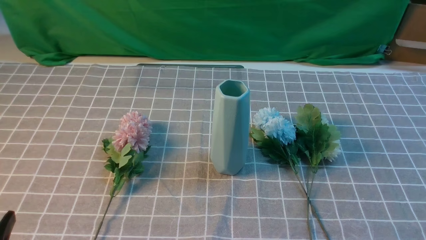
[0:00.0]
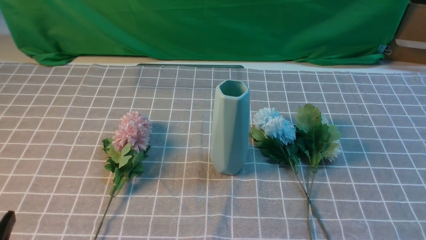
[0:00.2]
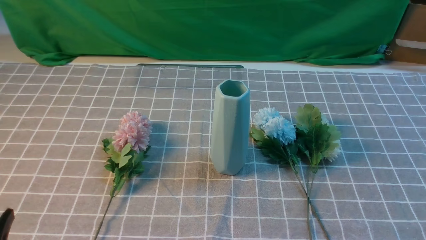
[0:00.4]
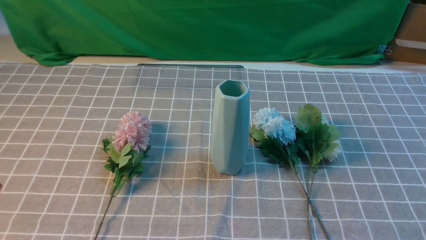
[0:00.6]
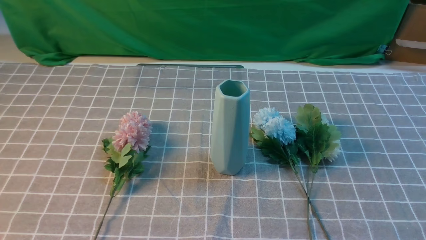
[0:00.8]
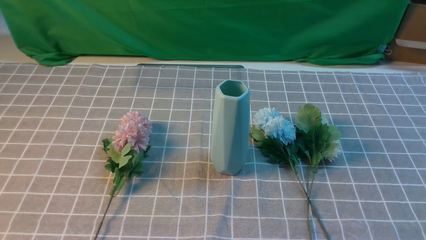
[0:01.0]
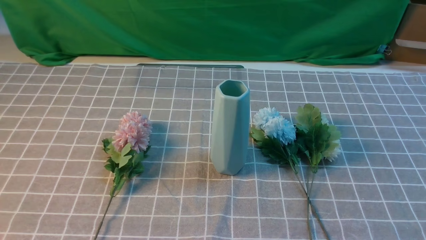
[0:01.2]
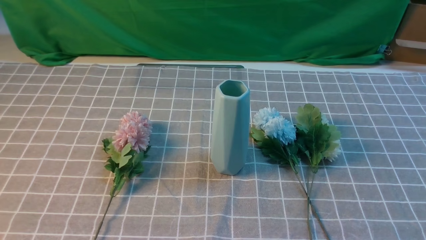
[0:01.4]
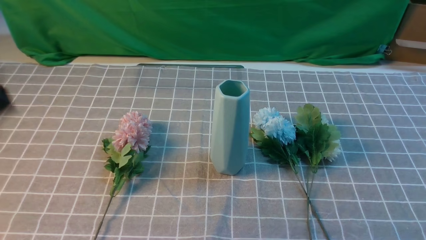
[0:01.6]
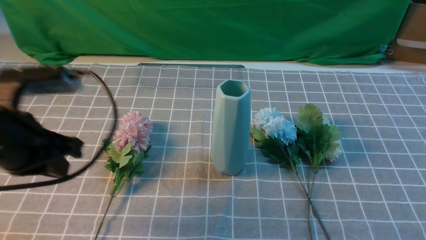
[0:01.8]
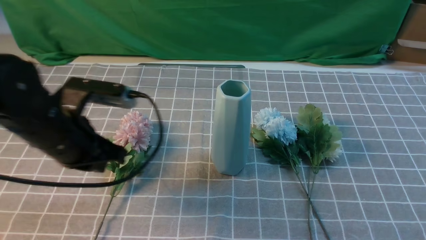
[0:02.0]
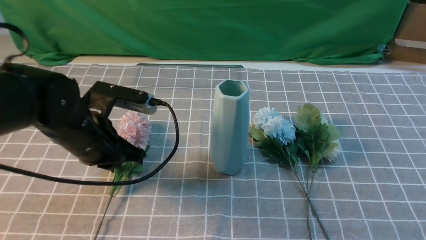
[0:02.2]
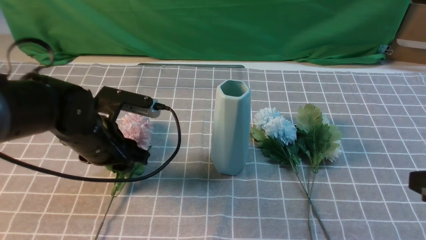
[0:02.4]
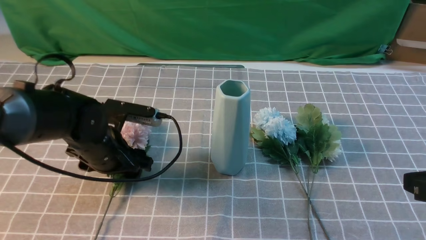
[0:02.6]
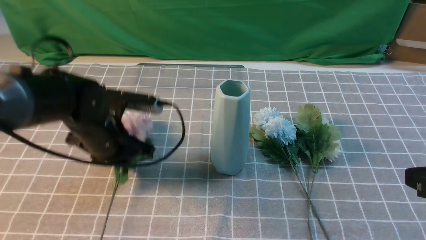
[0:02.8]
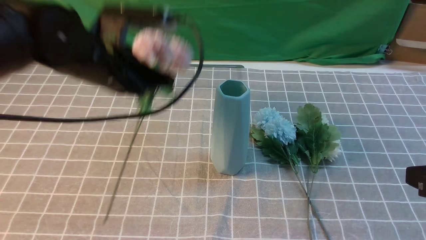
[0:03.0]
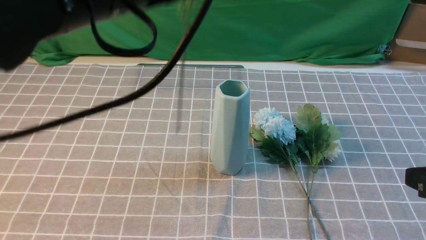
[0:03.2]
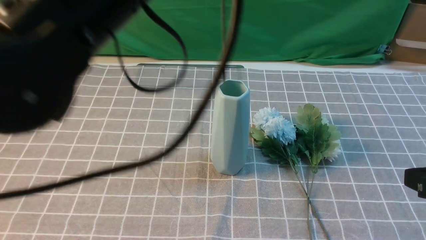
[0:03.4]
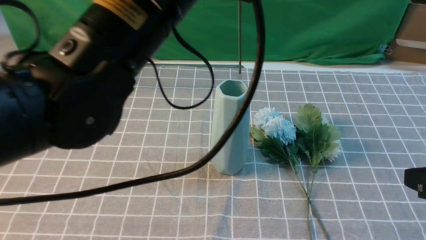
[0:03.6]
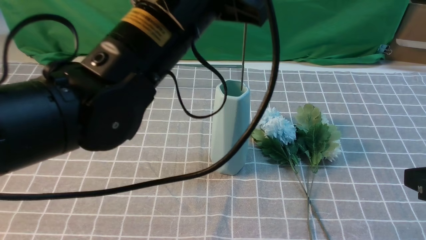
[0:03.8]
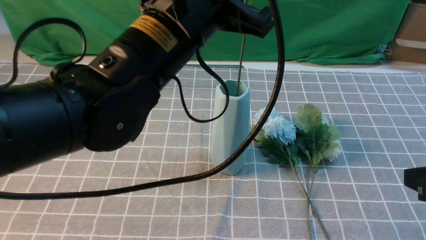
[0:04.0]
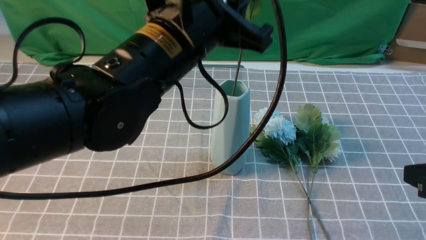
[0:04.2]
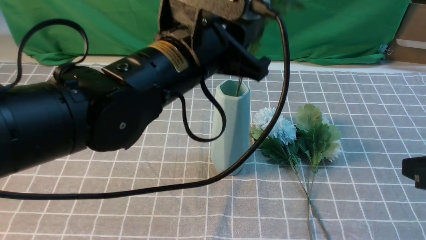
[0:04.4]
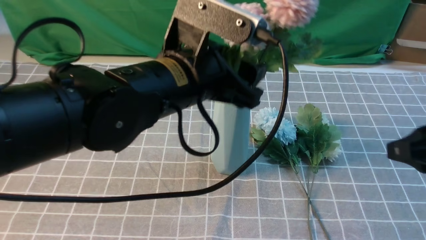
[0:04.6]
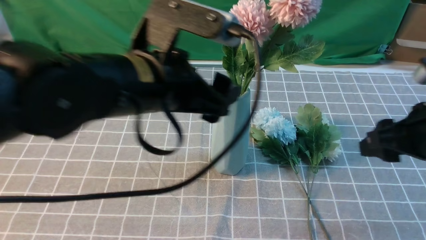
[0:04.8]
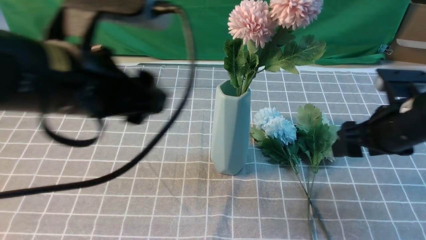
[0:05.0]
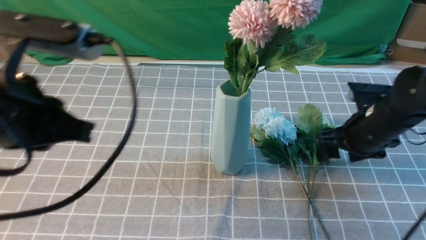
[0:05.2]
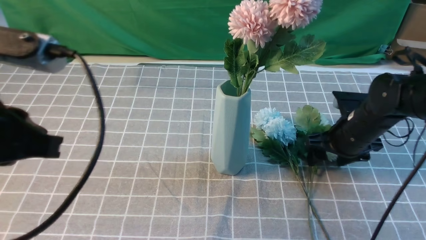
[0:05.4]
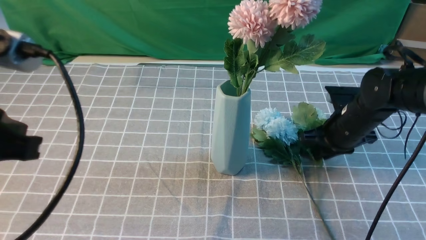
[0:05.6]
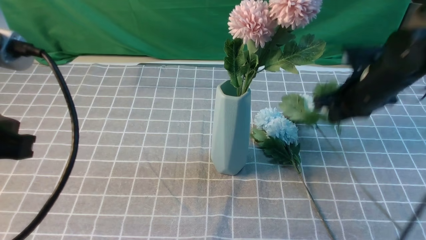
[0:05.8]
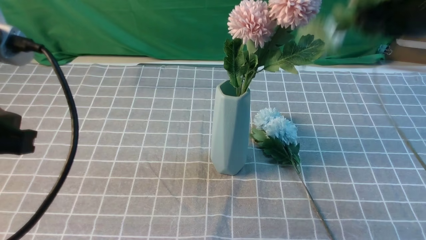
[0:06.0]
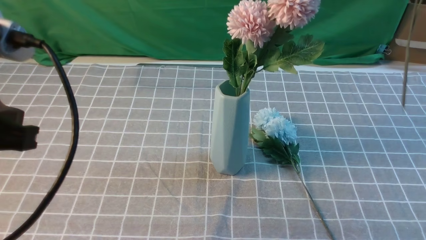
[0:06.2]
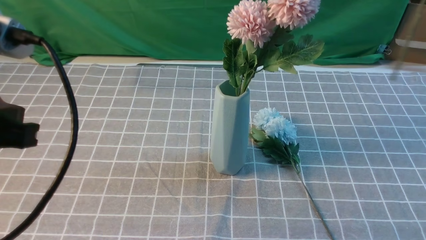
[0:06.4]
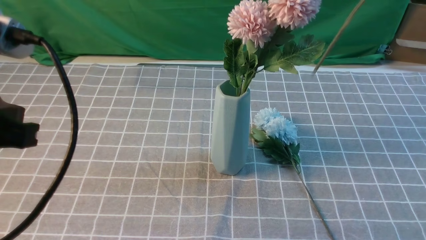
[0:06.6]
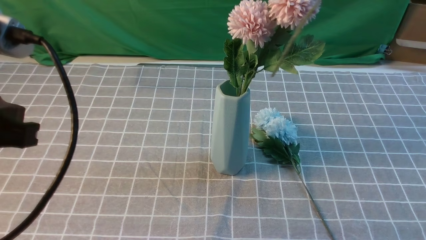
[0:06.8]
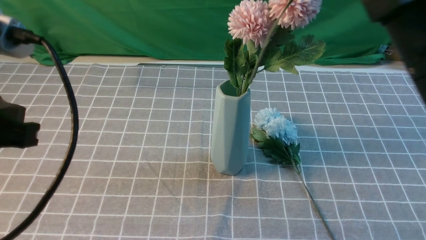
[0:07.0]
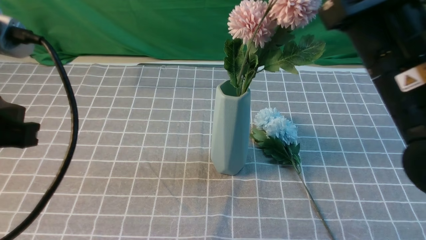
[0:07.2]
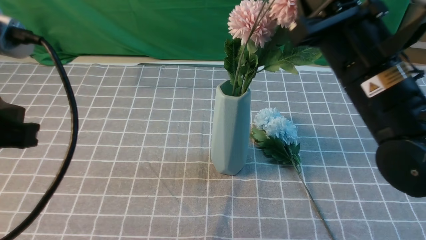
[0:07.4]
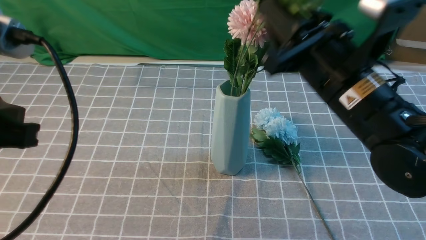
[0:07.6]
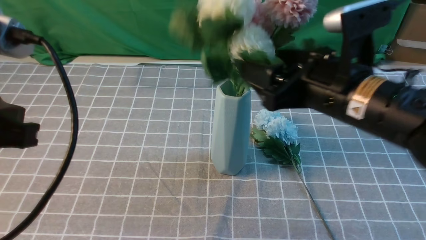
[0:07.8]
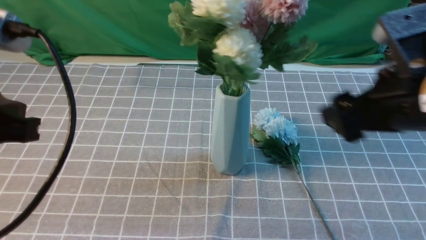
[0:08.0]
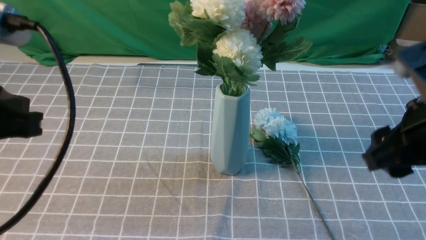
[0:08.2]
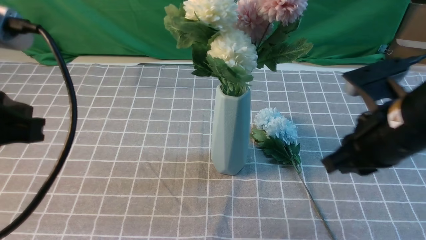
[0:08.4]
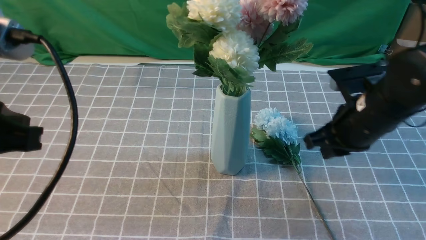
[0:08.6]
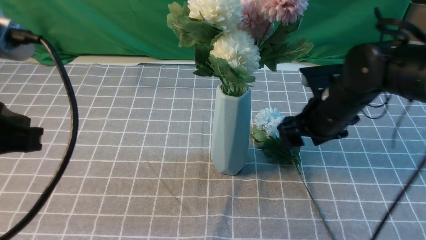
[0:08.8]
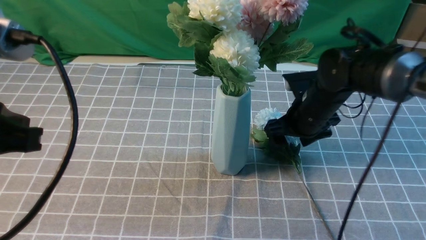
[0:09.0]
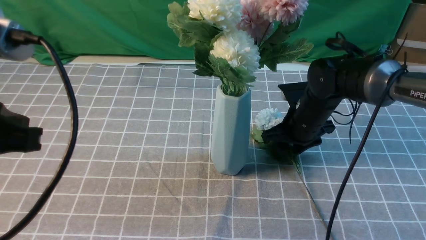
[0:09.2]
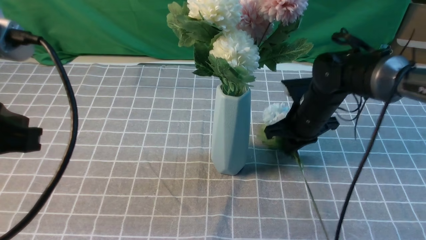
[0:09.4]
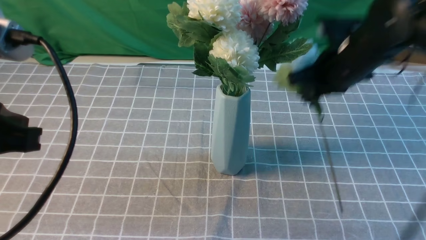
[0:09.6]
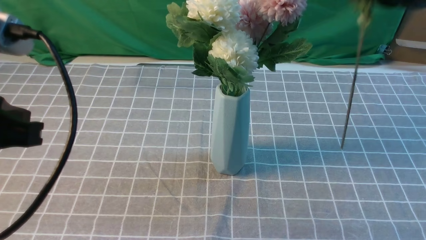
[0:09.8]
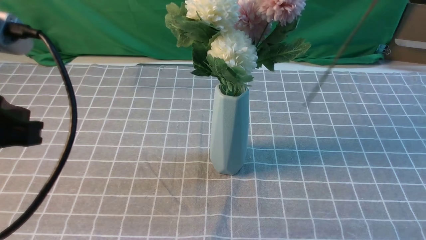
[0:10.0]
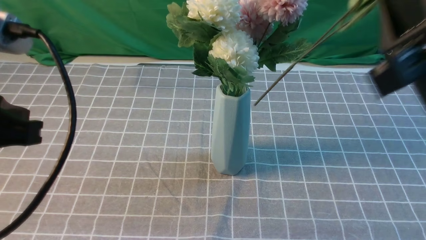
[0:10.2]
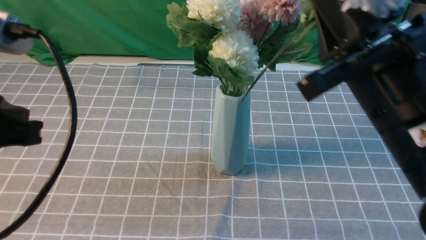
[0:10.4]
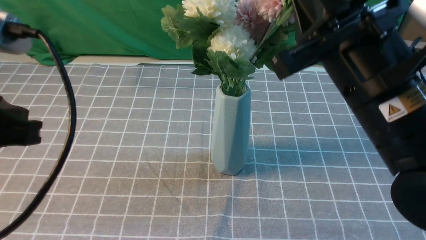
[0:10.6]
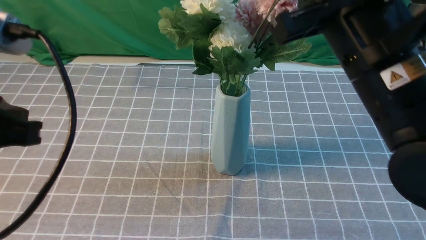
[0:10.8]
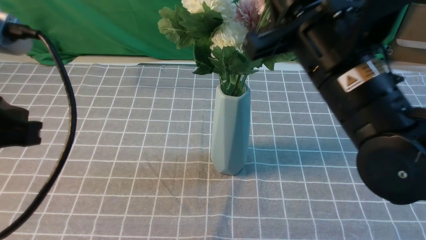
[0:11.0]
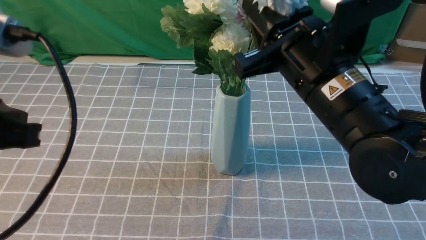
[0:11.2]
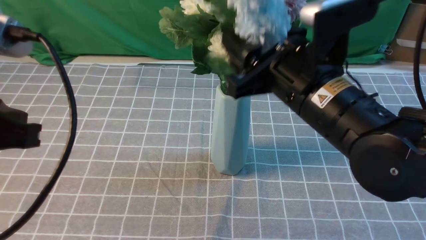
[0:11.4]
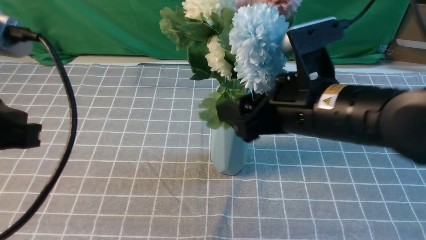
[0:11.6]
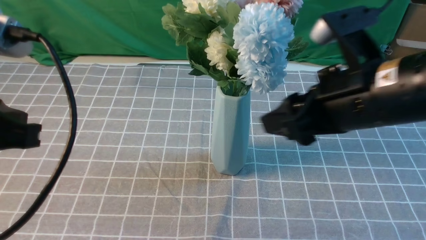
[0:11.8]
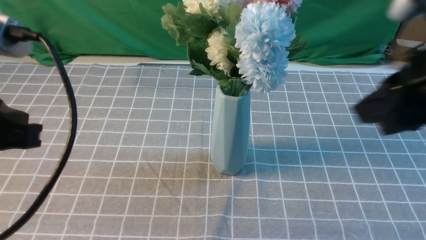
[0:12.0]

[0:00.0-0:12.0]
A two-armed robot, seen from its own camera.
Task of the whole recording: insert the flowers into the vase on the table with the grey tablecloth.
Step, 0:00.0 to 0:02.8: use the left arm to grab a bunch of fresh flowers.
Step, 0:03.0 to 0:04.8: use the left arm to insert the flowers into the vase.
Step, 0:05.0 to 0:05.6: use the right arm to grab a bunch of fresh flowers.
Step, 0:05.8 to 0:07.8: use the right arm to insert the flowers into the vase.
Step, 0:08.0 to 0:09.4: use the right arm to grab a bunch of fresh flowers.
Step, 0:09.6 to 0:11.6: use the right arm to insert the flowers into the vase.
0:00.0 to 0:01.6: The left gripper is displaced upward and forward by approximately 20 cm, and closes up.
0:01.6 to 0:03.0: The left gripper is displaced forward and to the right by roughly 20 cm, goes downward and returns, about 15 cm each way, and opens and closes again; the right gripper shifts about 15 cm forward and upward.
0:03.0 to 0:04.4: The left gripper moves to the right, about 5 cm, goes upward and returns, approximately 10 cm each way, and opens.
0:04.4 to 0:06.0: The right gripper shifts approximately 15 cm forward and upward, and opens and closes again; the left gripper shifts some 20 cm to the left and backward, and closes.
0:06.0 to 0:07.6: The right gripper is displaced to the left, downward and backward by about 15 cm, and opens up.
0:07.6 to 0:09.0: The right gripper travels downward and forward by approximately 20 cm, and opens up.
0:09.0 to 0:10.4: The right gripper is displaced backward and upward by about 25 cm, and closes up.
0:10.4 to 0:12.0: The right gripper shifts some 5 cm to the right, and opens, then closes once more.

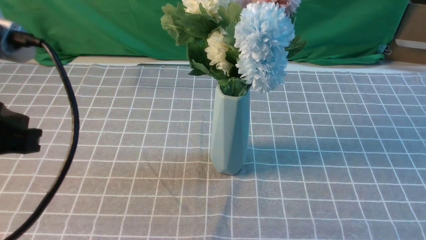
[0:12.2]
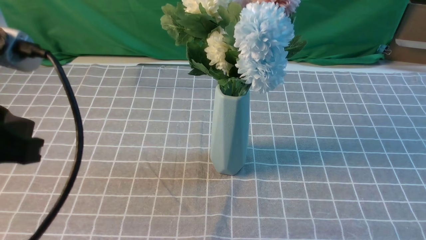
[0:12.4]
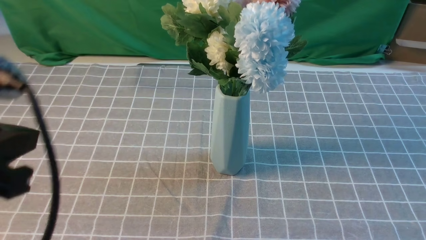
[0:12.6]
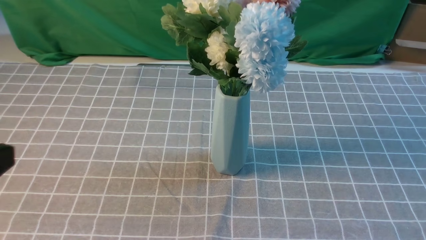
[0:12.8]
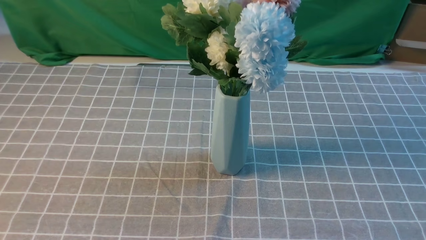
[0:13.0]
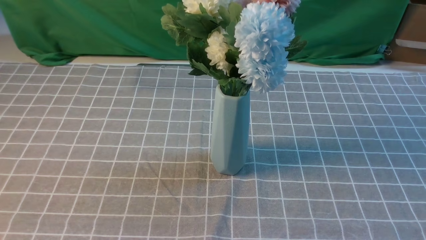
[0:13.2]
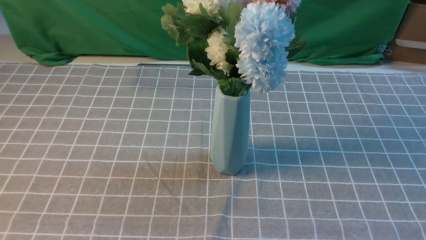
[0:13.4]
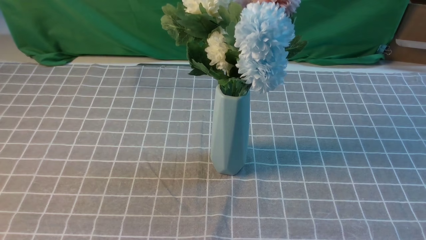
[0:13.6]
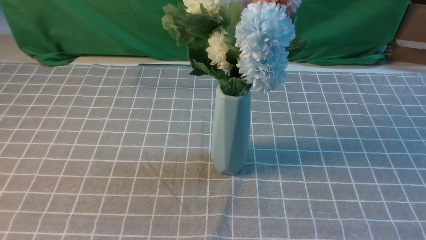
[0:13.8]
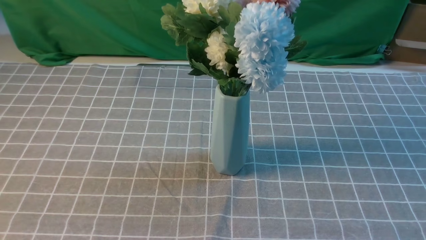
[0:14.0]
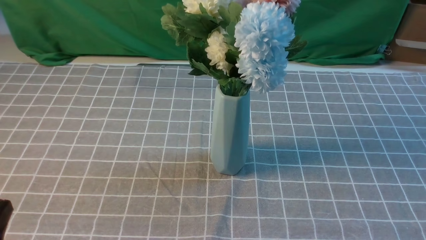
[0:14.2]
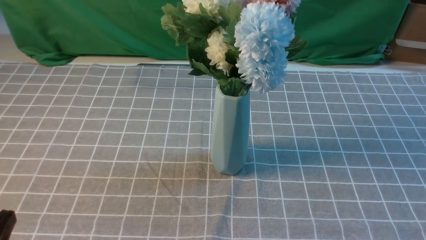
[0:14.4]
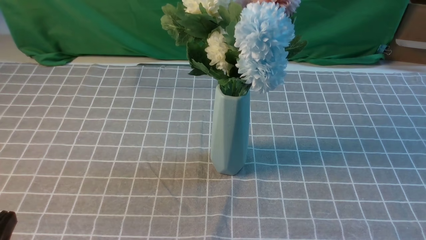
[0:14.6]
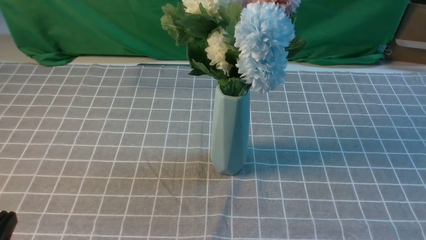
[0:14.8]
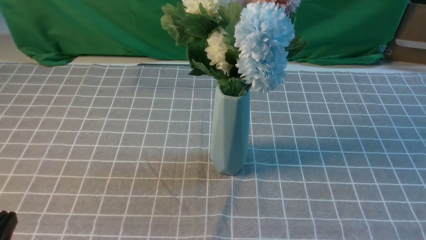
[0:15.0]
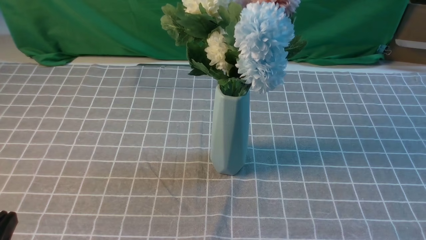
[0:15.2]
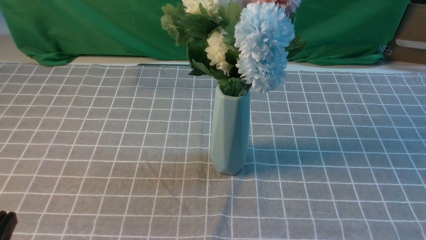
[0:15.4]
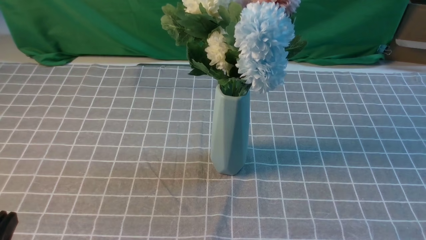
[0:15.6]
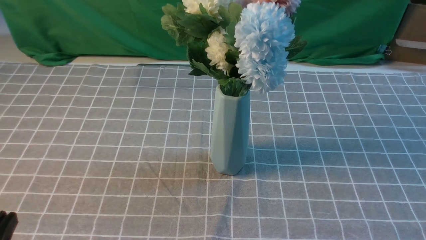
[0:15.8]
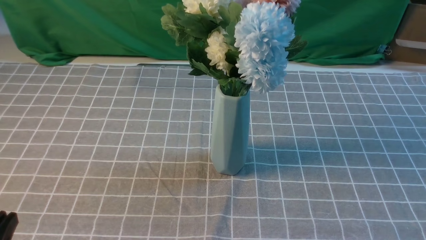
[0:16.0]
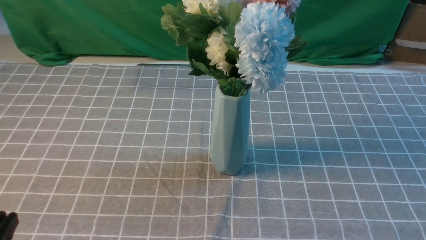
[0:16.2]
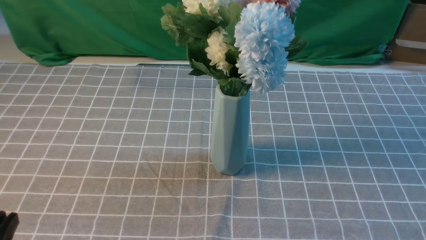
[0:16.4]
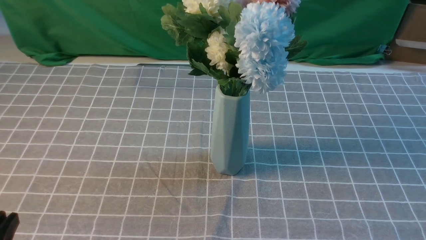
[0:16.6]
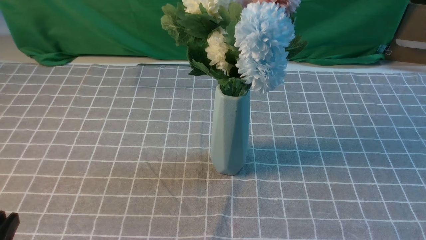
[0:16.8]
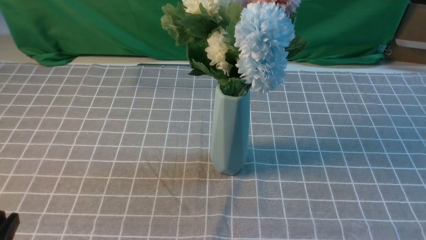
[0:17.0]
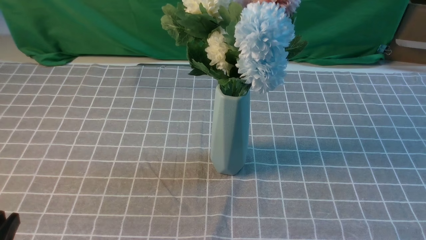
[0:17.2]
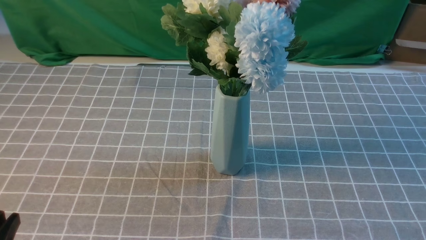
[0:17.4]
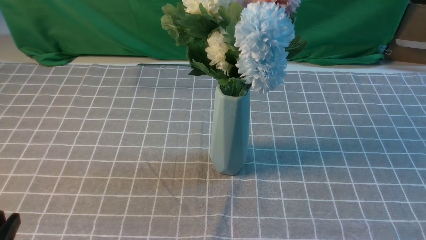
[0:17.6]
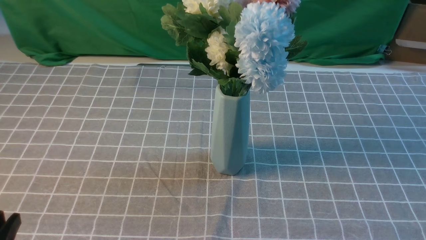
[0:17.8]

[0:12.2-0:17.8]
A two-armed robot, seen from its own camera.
Task of the whole recording: insert the flowers into the vase on the table with the grey tablecloth.
0:12.2 to 0:13.6: The left gripper moves backward and downward, roughly 15 cm.
0:16.4 to 0:17.8: The two grippers keep their place.
